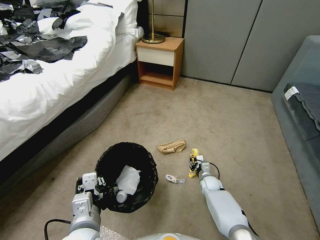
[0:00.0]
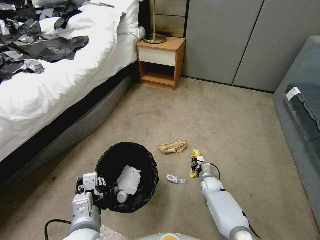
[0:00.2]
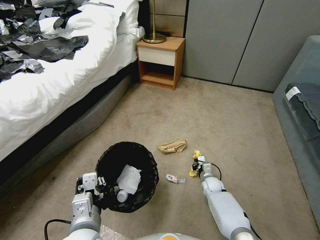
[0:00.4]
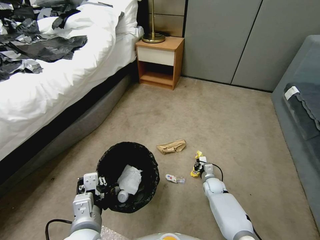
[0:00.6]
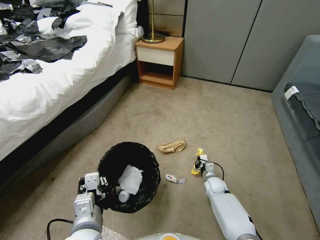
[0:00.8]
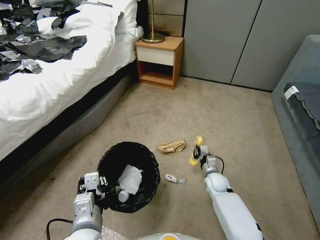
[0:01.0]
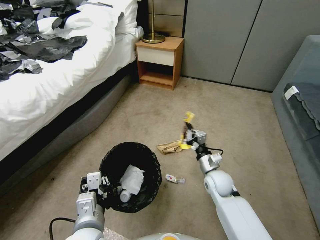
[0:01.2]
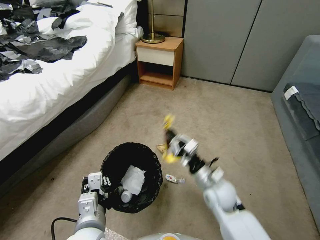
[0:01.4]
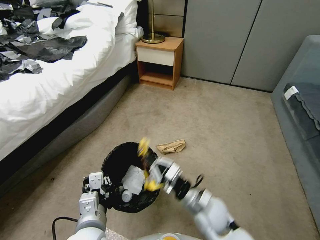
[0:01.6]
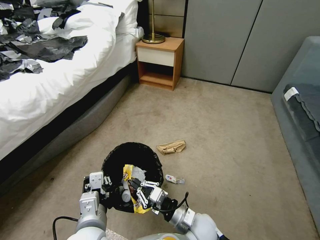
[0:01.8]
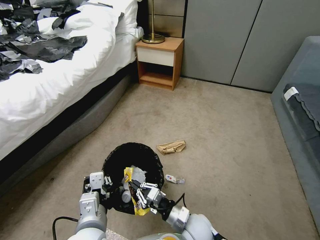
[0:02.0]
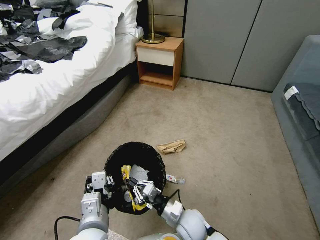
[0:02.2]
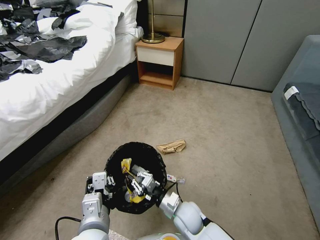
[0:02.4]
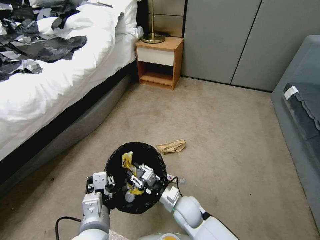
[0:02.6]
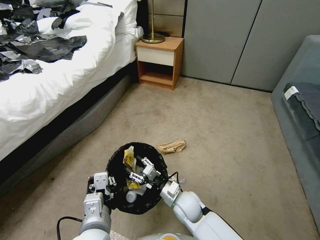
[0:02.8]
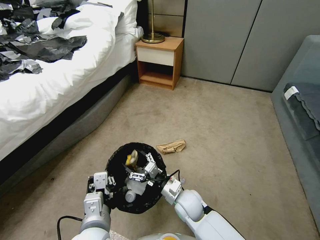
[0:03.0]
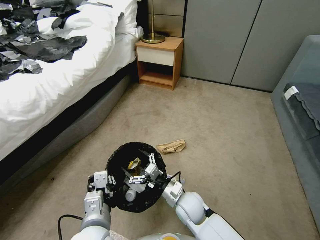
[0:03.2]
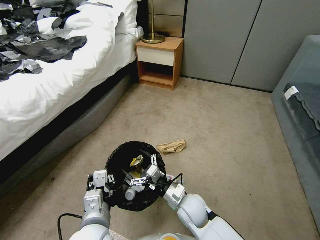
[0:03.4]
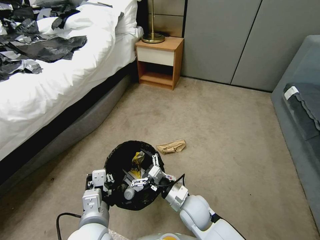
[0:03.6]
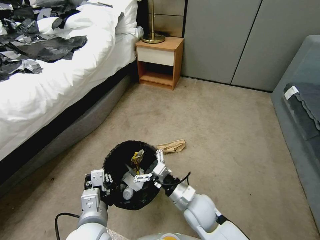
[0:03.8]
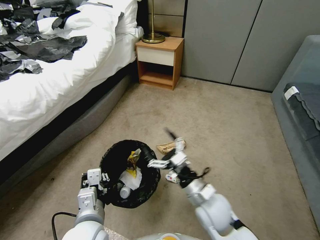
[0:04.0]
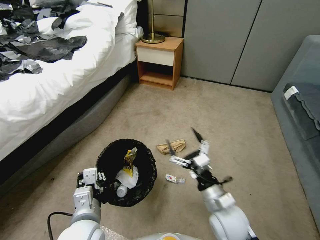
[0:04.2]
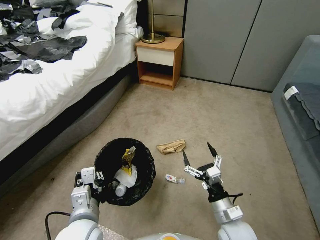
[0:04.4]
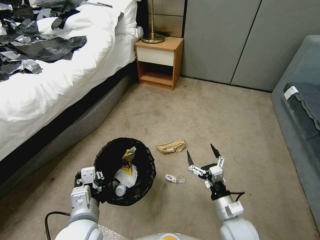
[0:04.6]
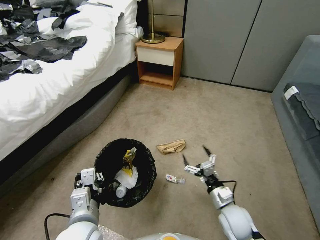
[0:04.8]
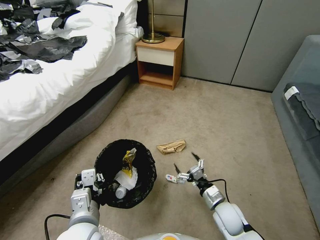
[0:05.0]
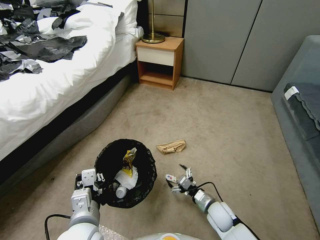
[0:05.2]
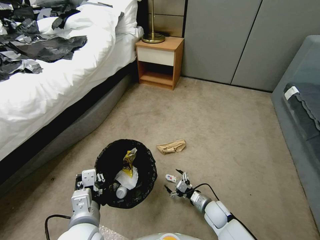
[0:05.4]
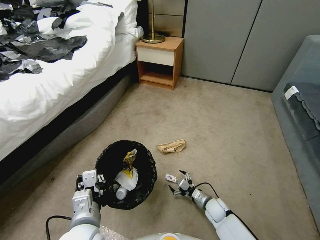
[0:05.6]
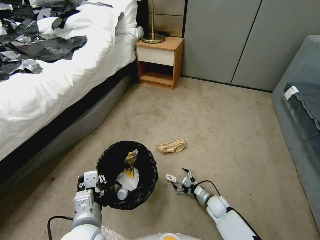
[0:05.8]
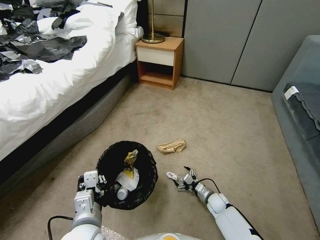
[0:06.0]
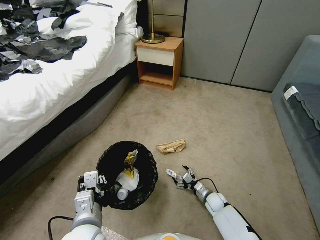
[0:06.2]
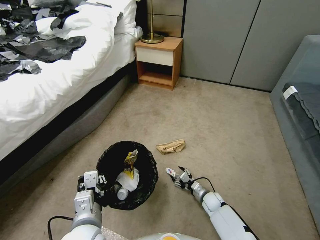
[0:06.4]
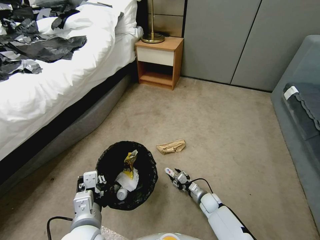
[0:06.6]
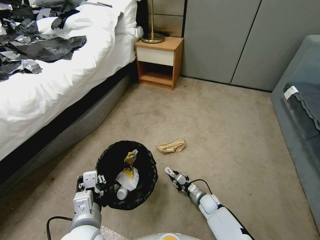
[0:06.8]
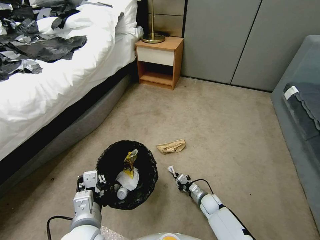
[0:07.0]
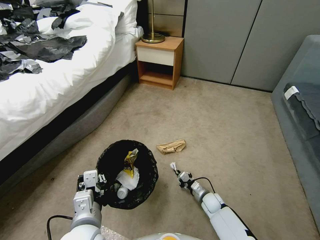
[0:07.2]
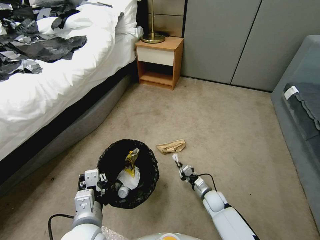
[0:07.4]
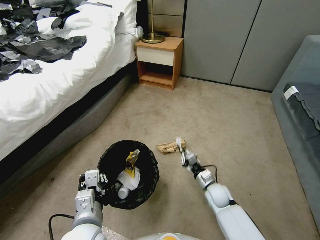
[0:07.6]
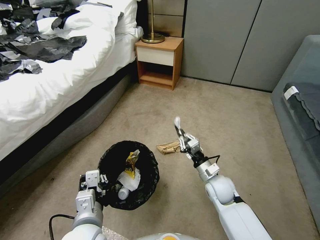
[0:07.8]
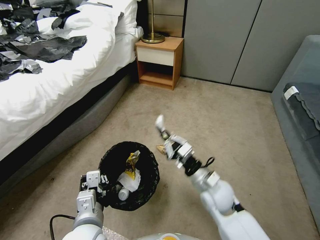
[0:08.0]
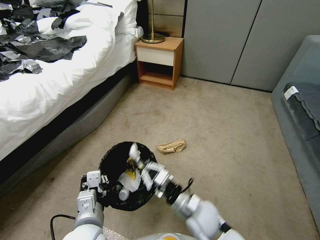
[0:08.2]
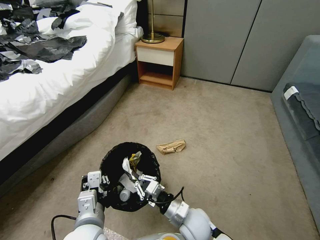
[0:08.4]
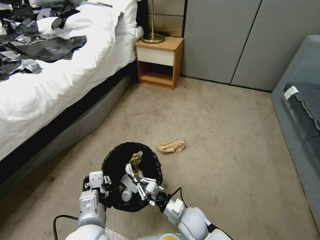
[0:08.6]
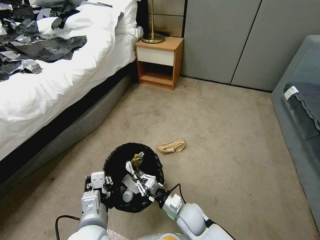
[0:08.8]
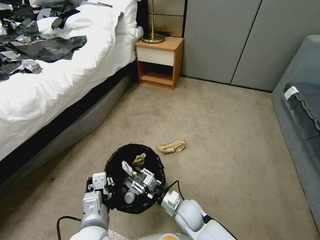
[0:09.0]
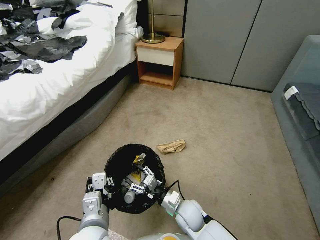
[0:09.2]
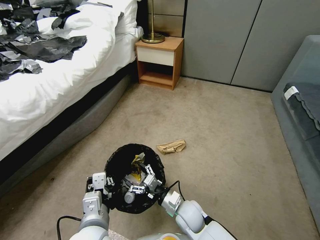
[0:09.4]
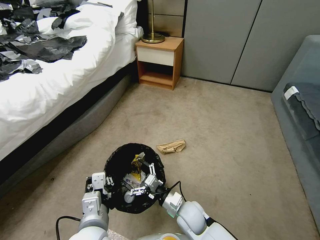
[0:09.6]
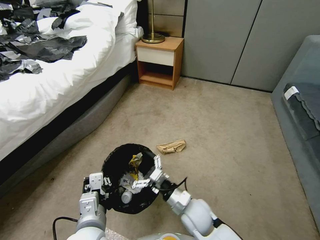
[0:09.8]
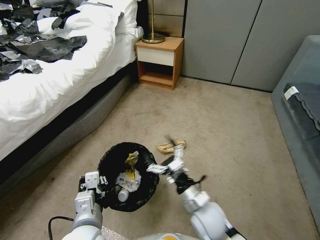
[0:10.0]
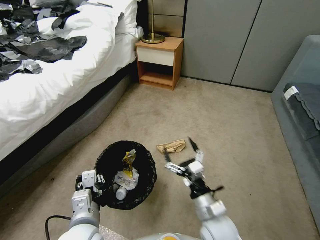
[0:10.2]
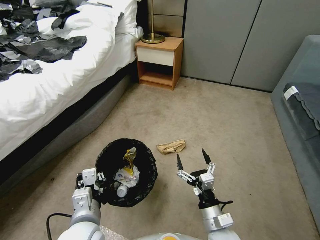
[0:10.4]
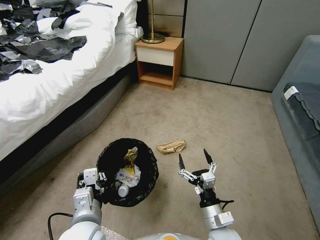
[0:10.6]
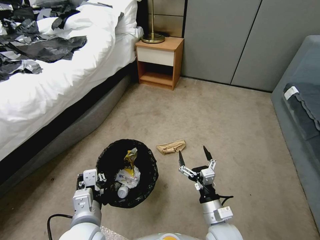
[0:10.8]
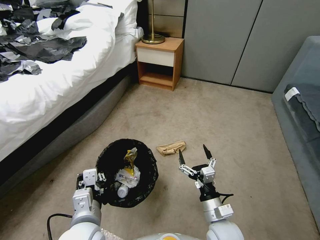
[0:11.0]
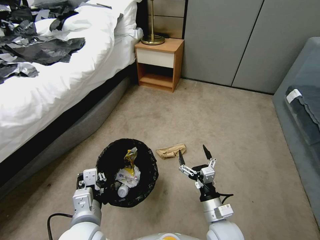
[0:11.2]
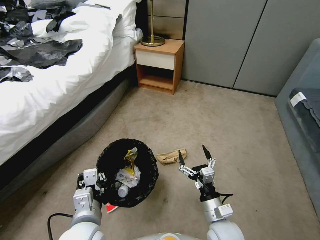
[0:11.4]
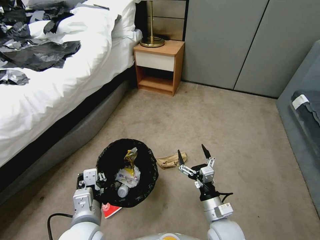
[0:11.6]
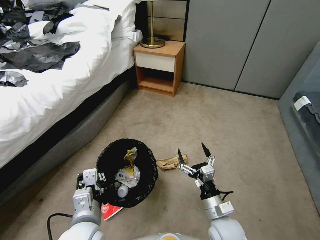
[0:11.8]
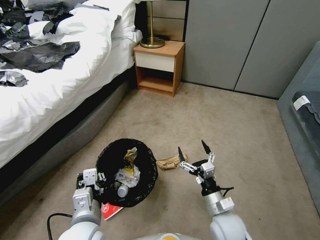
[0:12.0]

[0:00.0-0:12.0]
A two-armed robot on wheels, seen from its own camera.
Task of the whole recording: Pick up the trash bin, then pick up the garbage from the floor and place it into the trash bin.
0:00.0 to 0:01.6: The right gripper goes approximately 30 cm upward, backward and to the left, and closes up.
0:01.6 to 0:03.0: The right gripper moves forward, approximately 5 cm, and opens its fingers.
0:03.0 to 0:04.4: The right gripper goes about 15 cm to the right and backward.
0:04.4 to 0:06.0: The right gripper moves downward and forward, approximately 25 cm.
0:06.0 to 0:07.6: The right gripper travels upward by about 10 cm, and closes.
0:07.6 to 0:09.0: The right gripper travels to the left and backward by approximately 15 cm, and moves approximately 15 cm upward and comes back.
0:09.0 to 0:10.4: The right gripper is displaced backward, to the right and upward by about 15 cm, and opens its fingers.
0:10.4 to 0:12.0: The right gripper shifts by about 5 cm.

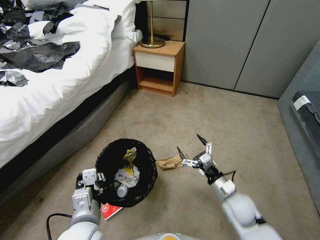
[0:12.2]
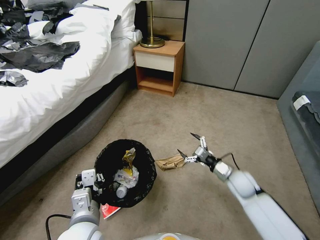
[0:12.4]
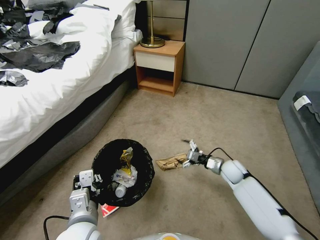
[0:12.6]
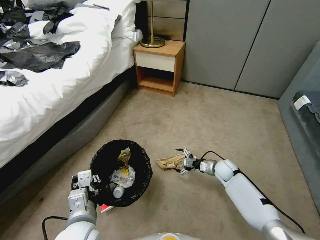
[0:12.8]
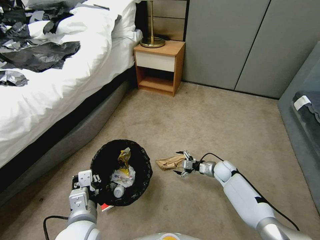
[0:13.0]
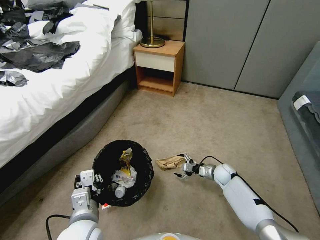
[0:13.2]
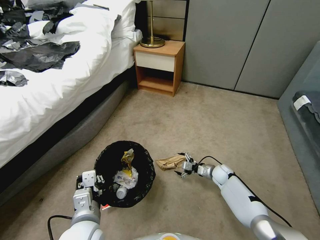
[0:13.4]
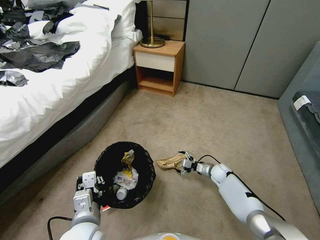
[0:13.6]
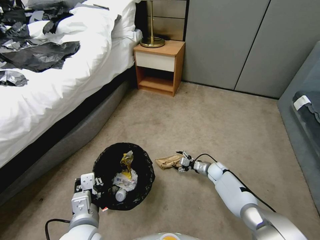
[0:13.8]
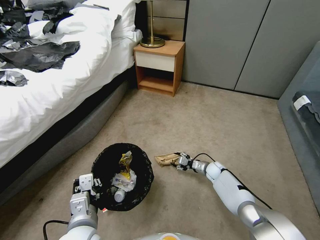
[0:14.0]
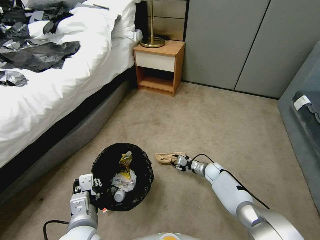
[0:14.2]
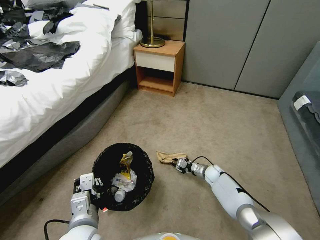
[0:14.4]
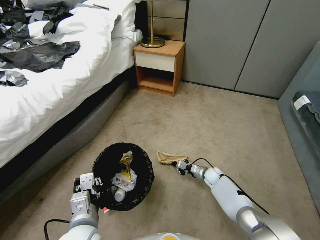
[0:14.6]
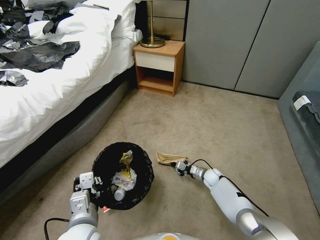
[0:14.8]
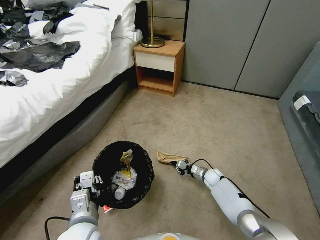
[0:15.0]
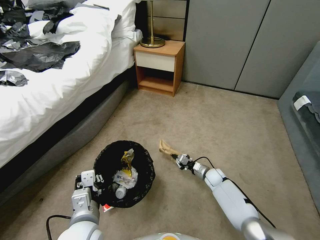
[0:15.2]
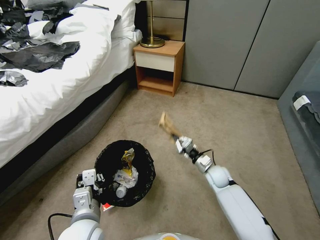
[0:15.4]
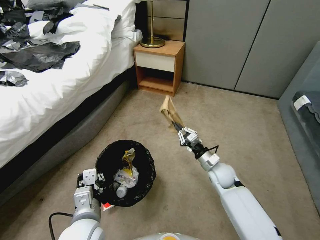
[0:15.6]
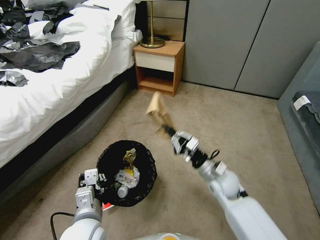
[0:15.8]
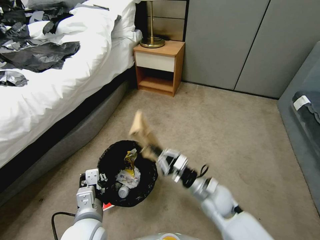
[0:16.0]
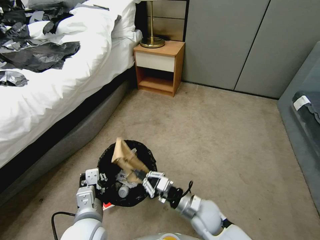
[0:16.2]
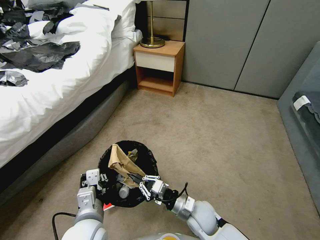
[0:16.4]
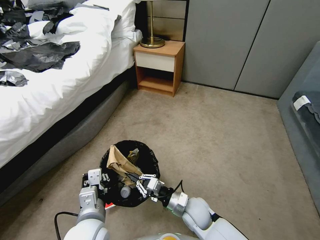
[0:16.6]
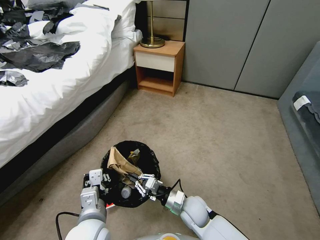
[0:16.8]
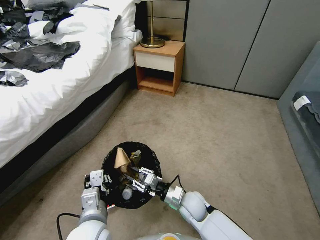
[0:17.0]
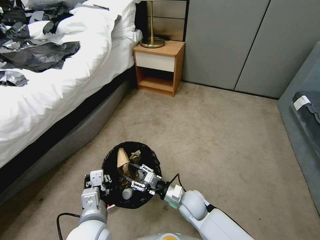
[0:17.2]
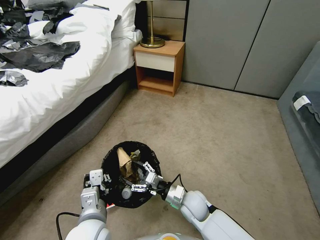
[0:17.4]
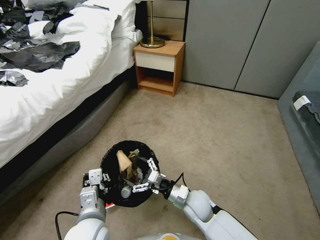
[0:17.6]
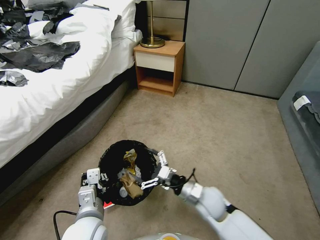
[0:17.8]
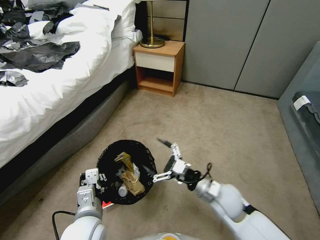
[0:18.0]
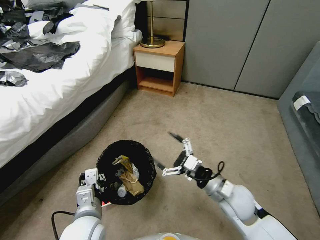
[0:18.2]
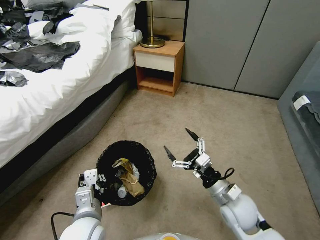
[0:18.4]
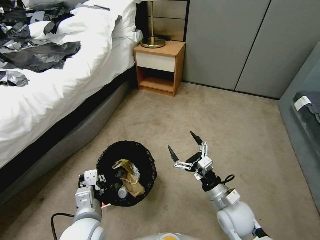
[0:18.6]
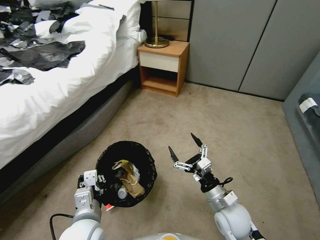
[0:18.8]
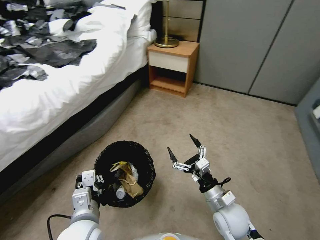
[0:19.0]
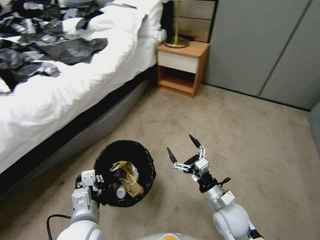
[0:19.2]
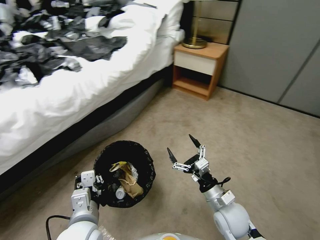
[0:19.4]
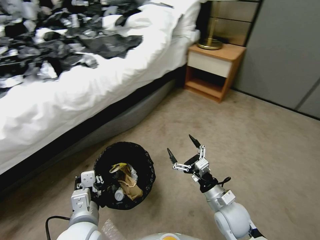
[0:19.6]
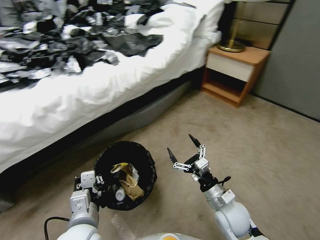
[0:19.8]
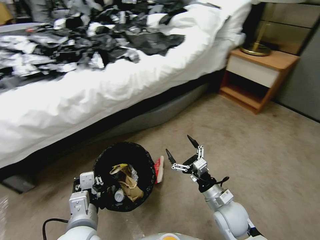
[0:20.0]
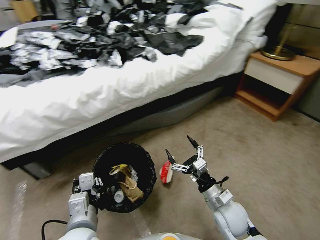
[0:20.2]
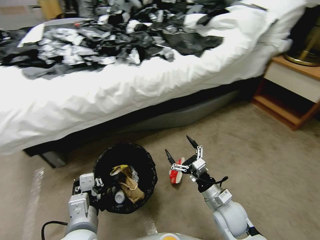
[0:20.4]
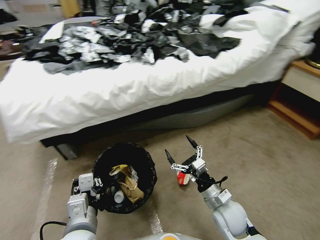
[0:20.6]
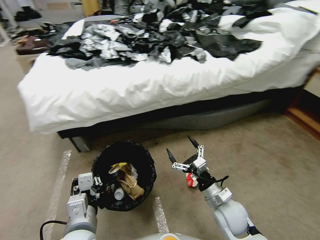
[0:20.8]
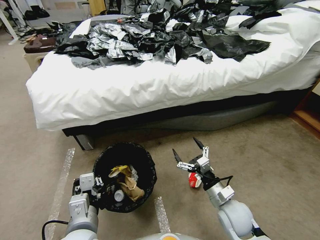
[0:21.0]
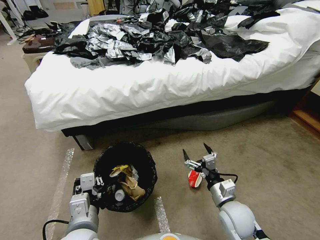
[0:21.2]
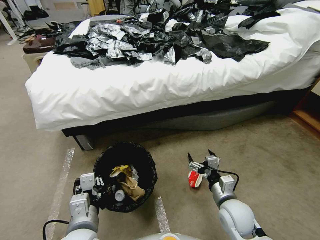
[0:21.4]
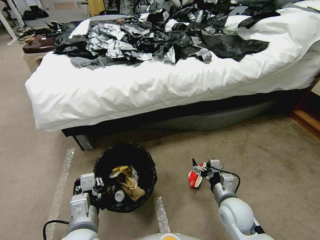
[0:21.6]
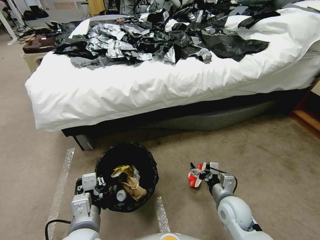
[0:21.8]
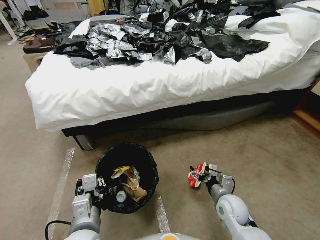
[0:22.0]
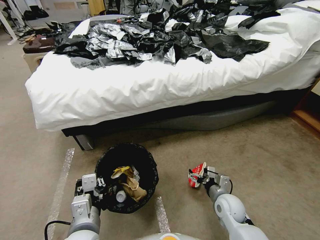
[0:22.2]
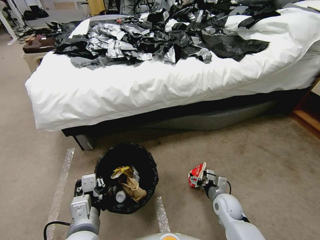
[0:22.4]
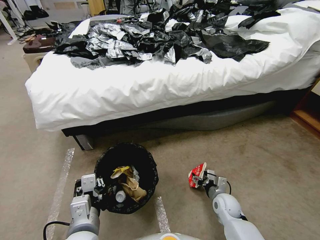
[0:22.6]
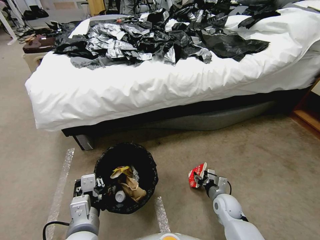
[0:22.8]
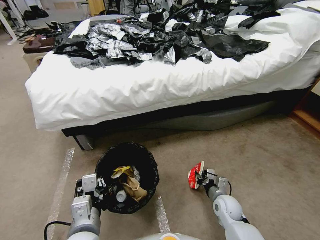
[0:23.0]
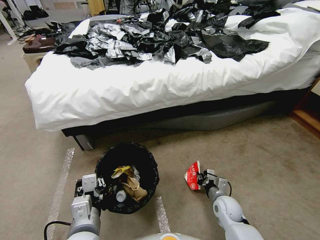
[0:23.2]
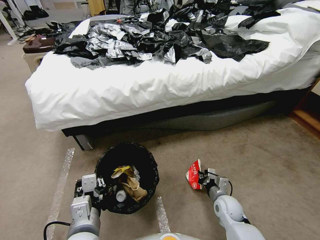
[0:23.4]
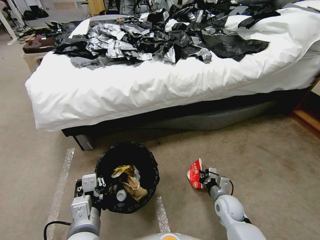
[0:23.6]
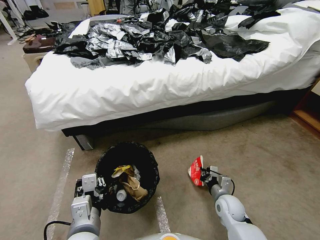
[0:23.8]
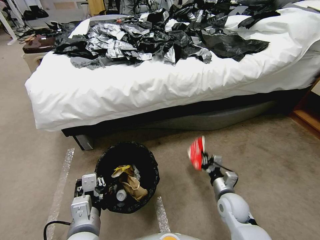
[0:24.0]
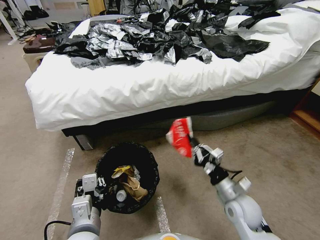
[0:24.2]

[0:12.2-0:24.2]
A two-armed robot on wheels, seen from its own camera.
Task of the whole recording: Pick up the trash bin, then pick up the garbage from the floor and place it into the trash bin.
0:12.2 to 0:13.8: The right gripper is displaced forward and downward by roughly 25 cm.
0:13.8 to 0:15.2: The right gripper closes its fingers.
0:15.2 to 0:16.6: The right gripper is displaced backward, to the left and upward by some 25 cm.
0:16.6 to 0:18.2: The right gripper heads upward and to the right, covering approximately 15 cm, and opens its fingers.
0:18.2 to 0:19.8: The right gripper travels downward by roughly 5 cm.
0:21.2 to 0:22.6: The right gripper is displaced downward and forward by about 15 cm.
0:22.6 to 0:24.2: The right gripper goes some 15 cm upward, and closes.
